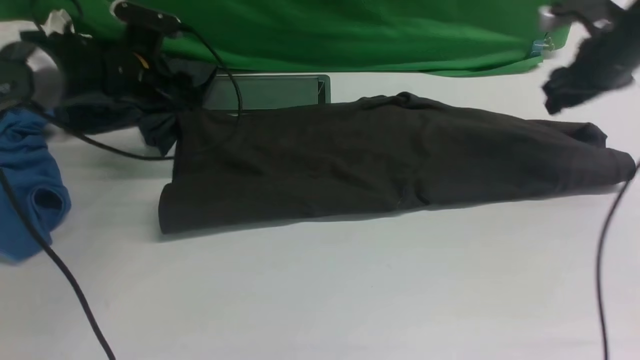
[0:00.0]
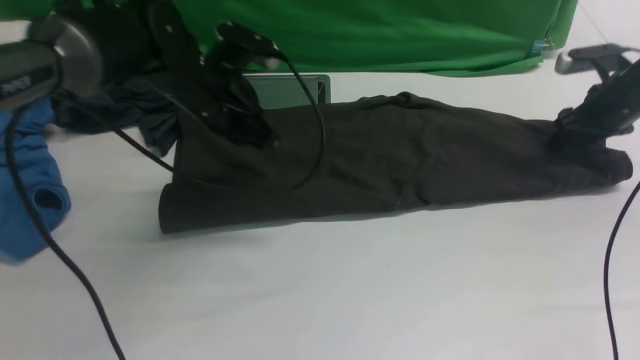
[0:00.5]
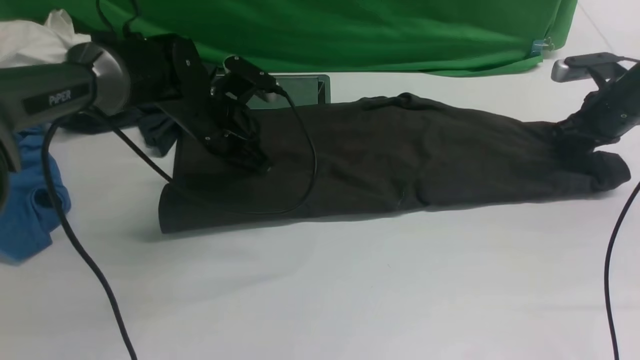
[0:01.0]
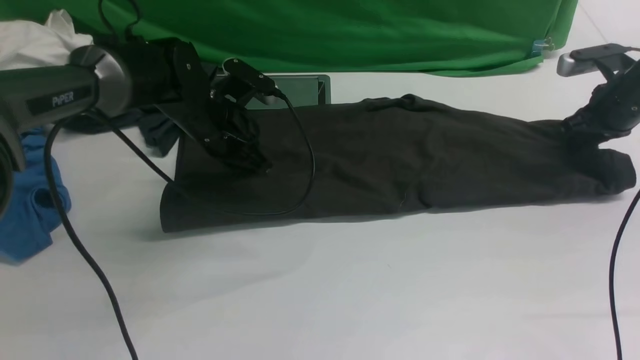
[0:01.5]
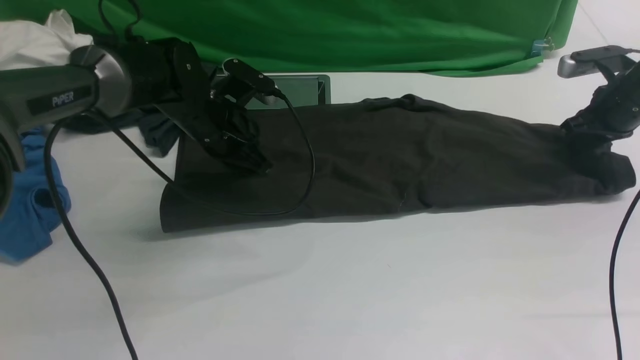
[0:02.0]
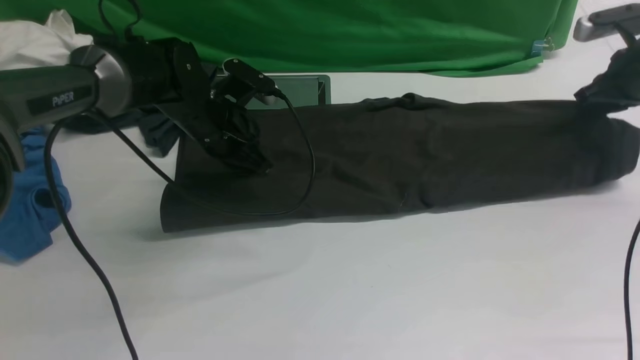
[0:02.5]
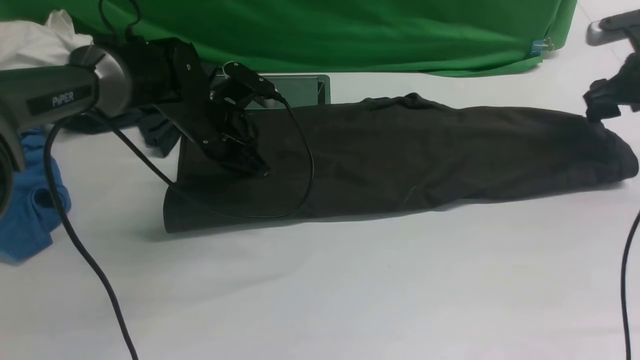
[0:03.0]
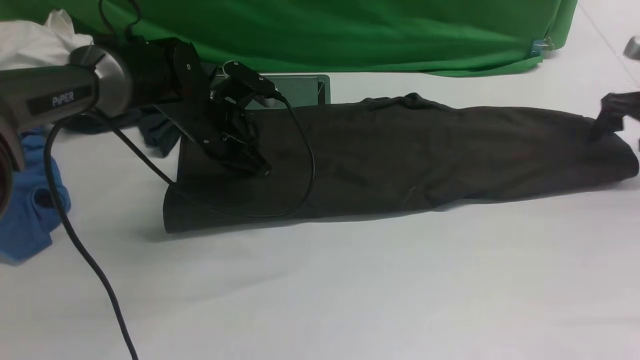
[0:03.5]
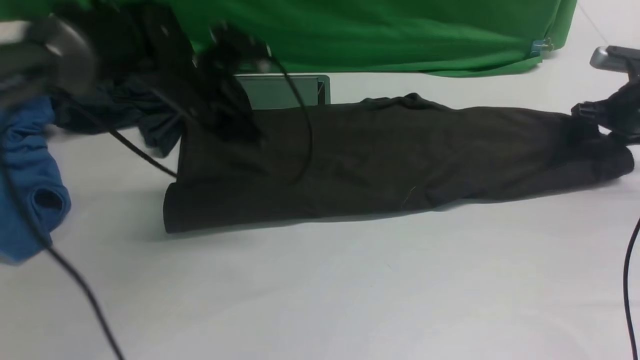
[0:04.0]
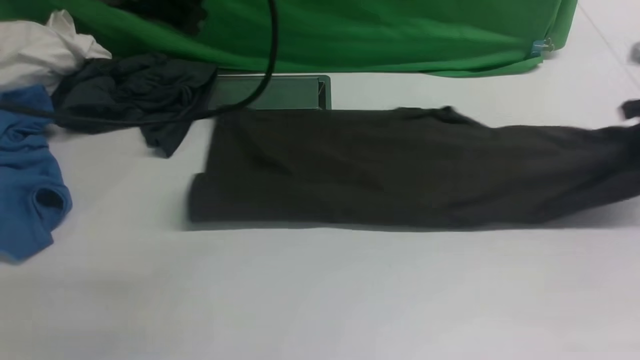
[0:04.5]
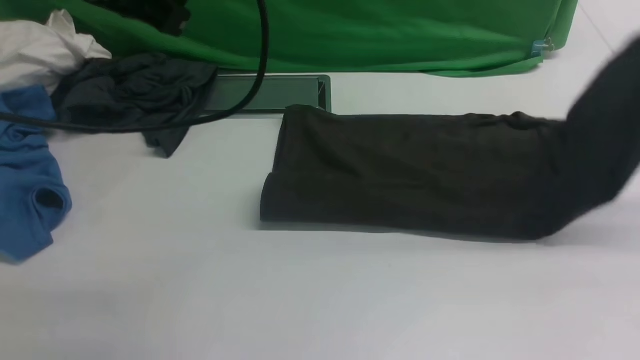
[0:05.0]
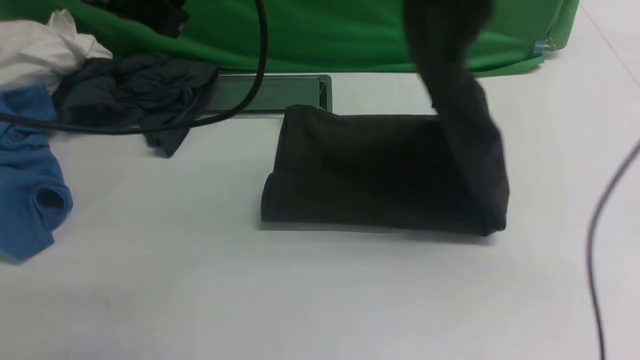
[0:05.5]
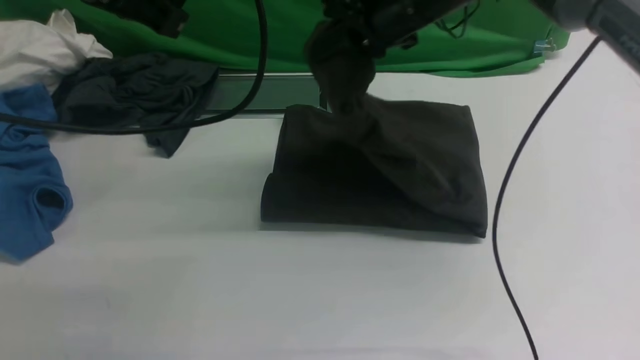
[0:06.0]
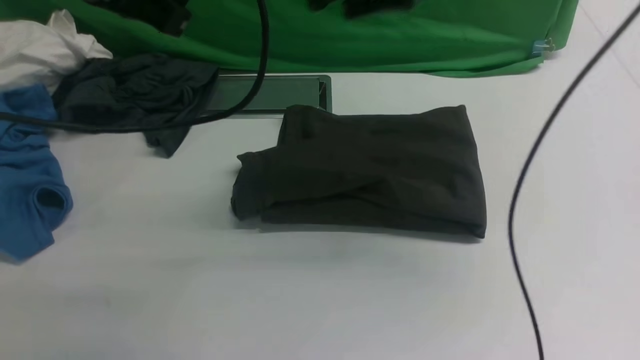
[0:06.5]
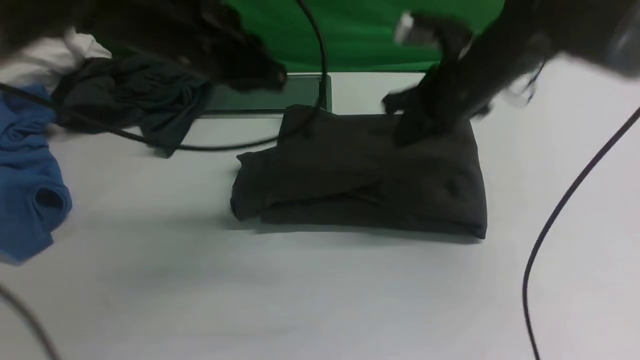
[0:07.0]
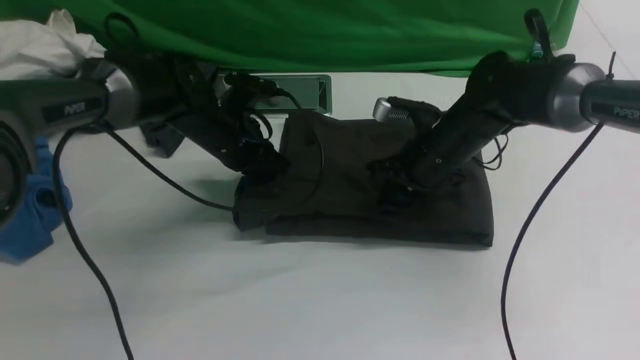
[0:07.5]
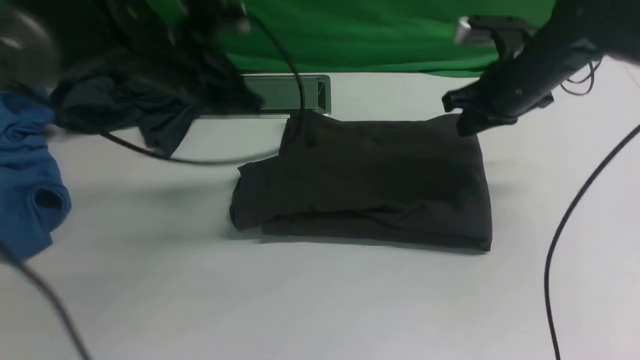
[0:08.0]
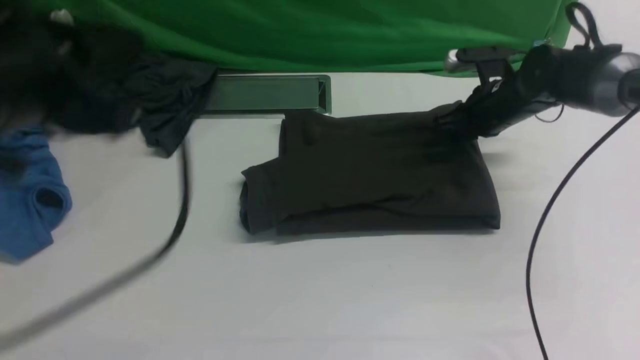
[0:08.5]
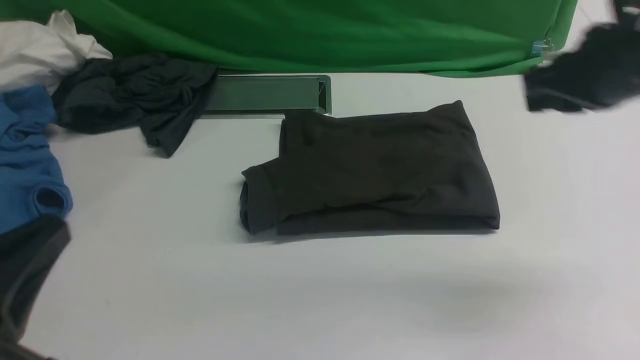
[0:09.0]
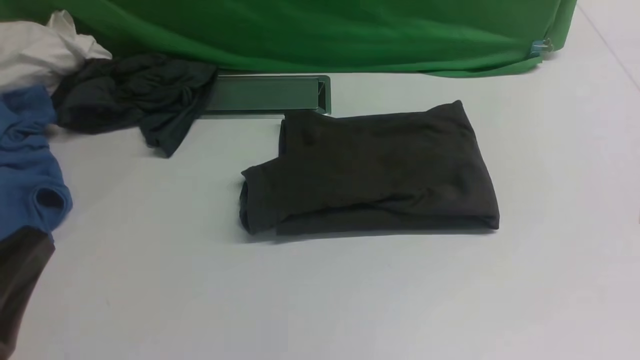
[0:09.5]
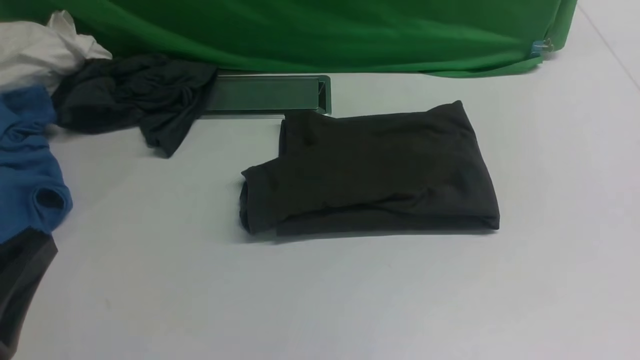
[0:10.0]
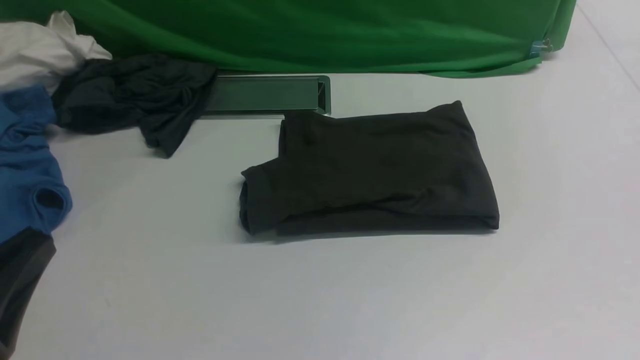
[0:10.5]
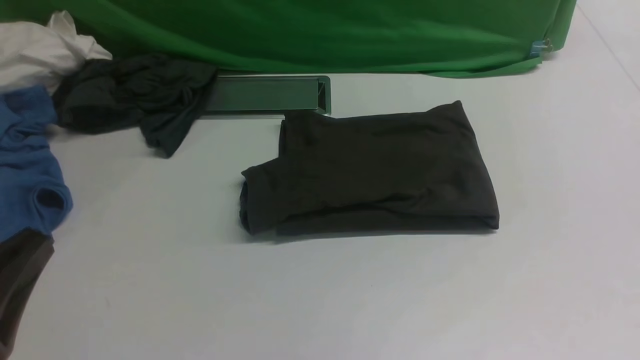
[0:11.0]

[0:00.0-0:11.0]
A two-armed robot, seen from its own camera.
Step, 0:00.0 to 0:04.0: use the right arm to clamp the right edge of the fabric.
Step, 0:04.5 to 0:06.5: use the right arm to drag the right edge of the fabric to the left and folds it over the left edge.
0:00.0 to 0:02.0: The right gripper is displaced to the right and downward by approximately 10 cm, and closes. The left gripper moves to the right, some 10 cm, and closes up.
0:02.0 to 0:03.5: The right gripper is displaced to the right by about 5 cm, and opens.
0:03.5 to 0:05.5: The left gripper shifts about 30 cm upward and backward, while the right gripper travels to the left and upward by approximately 30 cm, and closes its fingers.
0:05.5 to 0:07.5: The right gripper swings up and down, some 20 cm each way, with 2 reversals, and opens and closes again. The left gripper moves downward and forward, roughly 25 cm.
0:07.5 to 0:09.0: The left gripper shifts about 35 cm backward. The right gripper swings up and down, some 15 cm each way, with 2 reversals.
0:09.0 to 0:11.0: The right gripper heads backward and downward, covering approximately 30 cm.

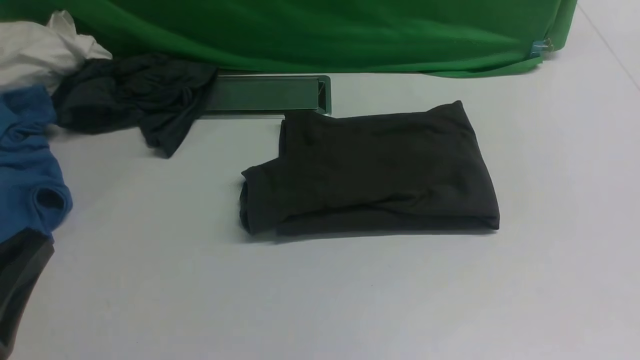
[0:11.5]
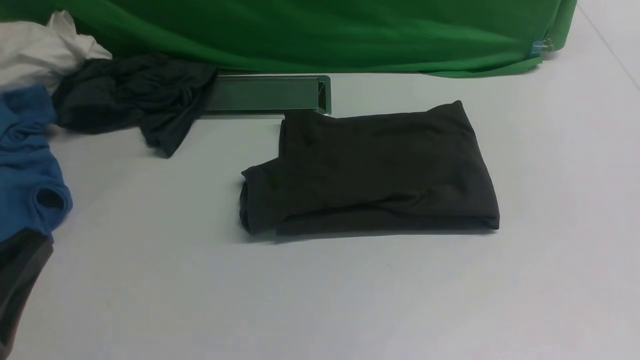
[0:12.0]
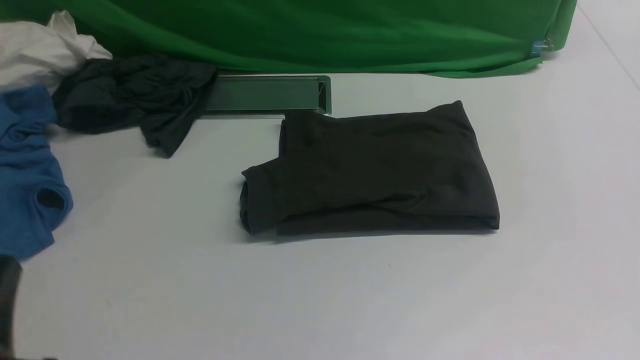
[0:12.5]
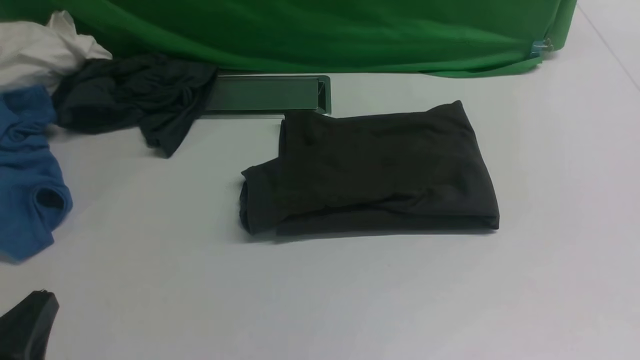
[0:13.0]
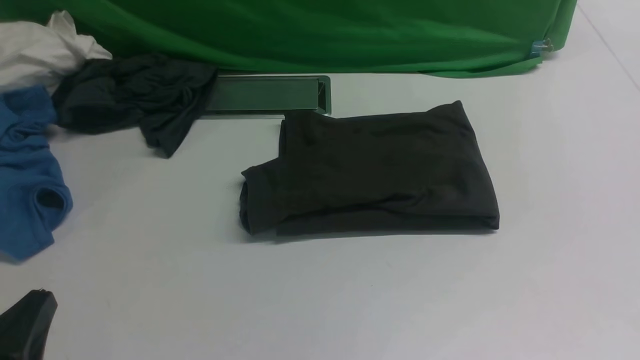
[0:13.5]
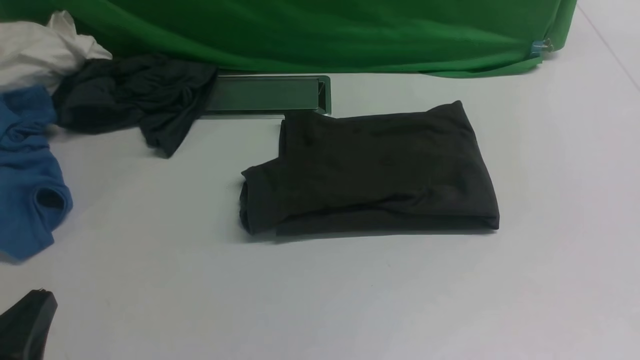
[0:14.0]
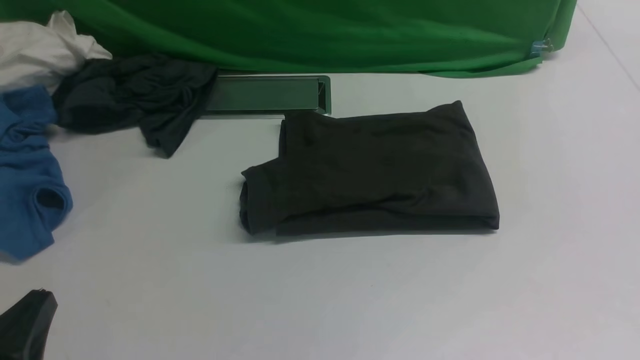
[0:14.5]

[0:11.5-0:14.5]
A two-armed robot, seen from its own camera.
0:11.5 to 0:13.0: The left gripper is displaced downward by some 10 cm.
0:13.0 to 0:14.5: Both grippers stay put.
